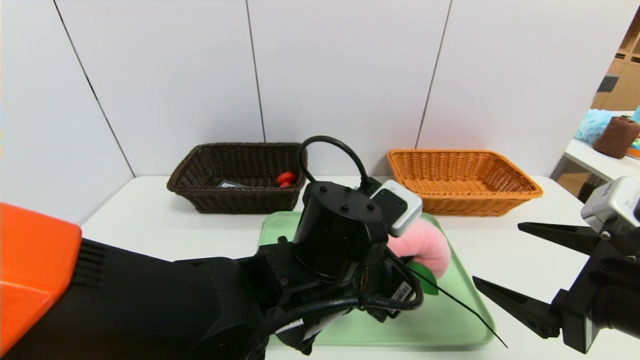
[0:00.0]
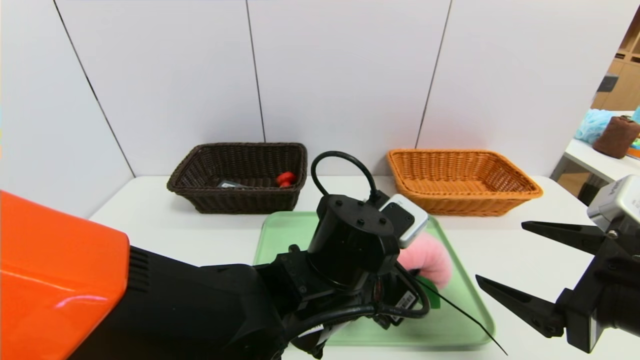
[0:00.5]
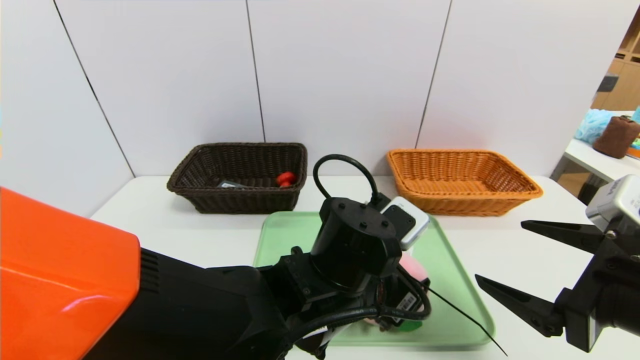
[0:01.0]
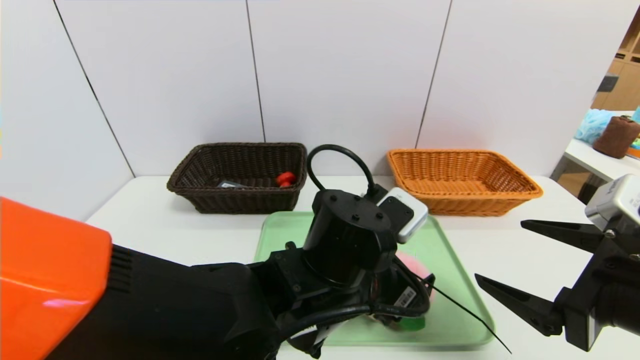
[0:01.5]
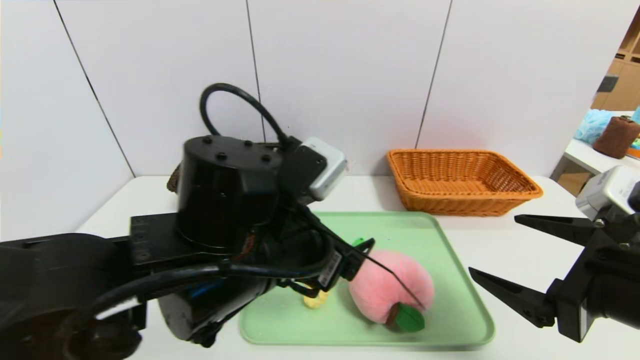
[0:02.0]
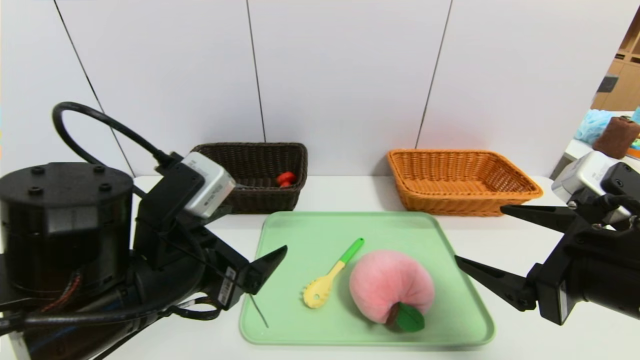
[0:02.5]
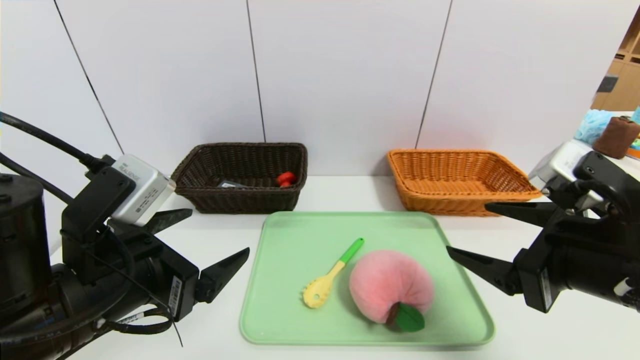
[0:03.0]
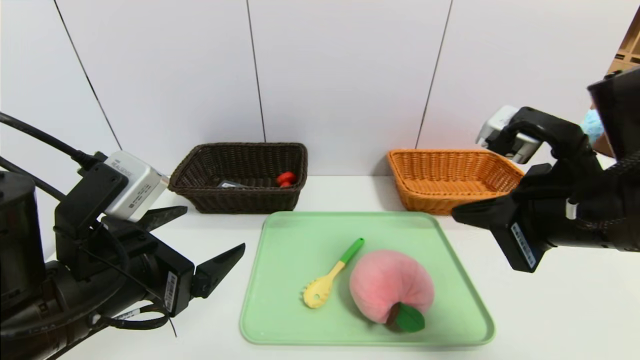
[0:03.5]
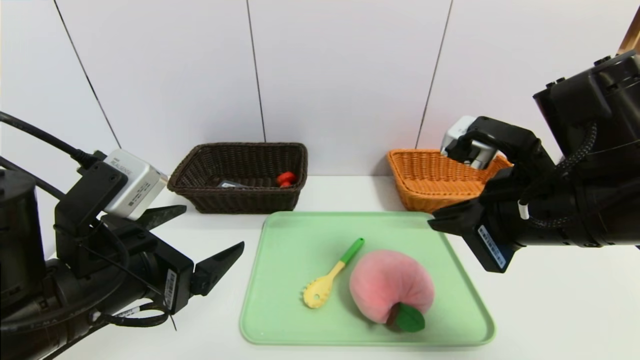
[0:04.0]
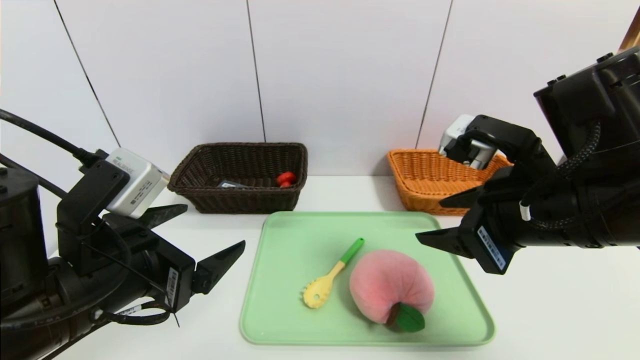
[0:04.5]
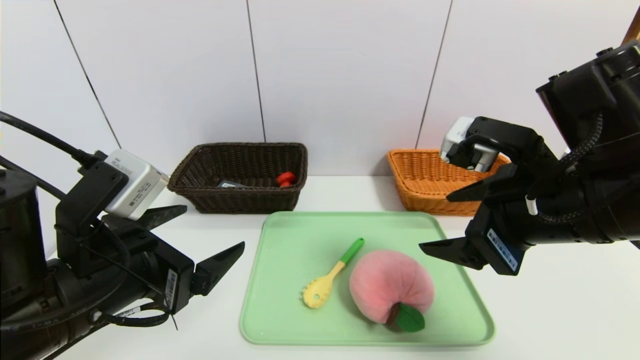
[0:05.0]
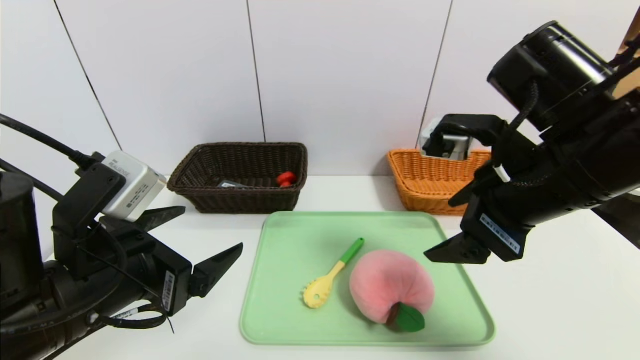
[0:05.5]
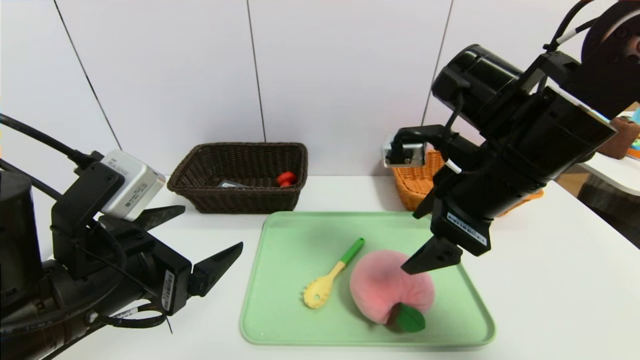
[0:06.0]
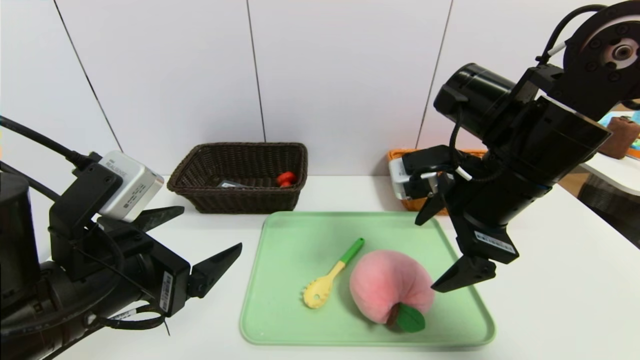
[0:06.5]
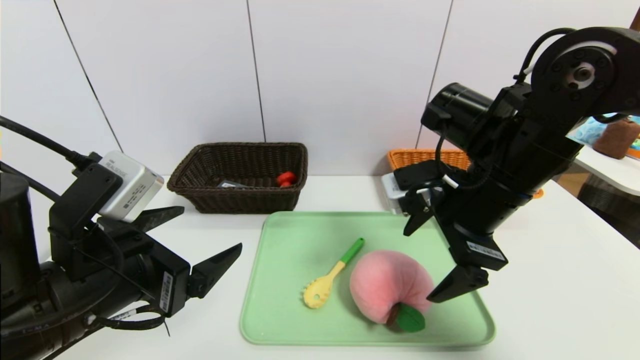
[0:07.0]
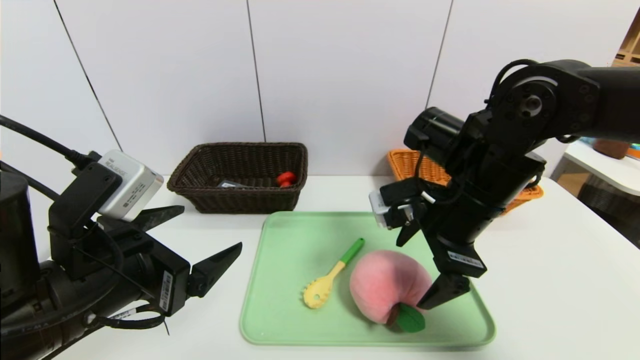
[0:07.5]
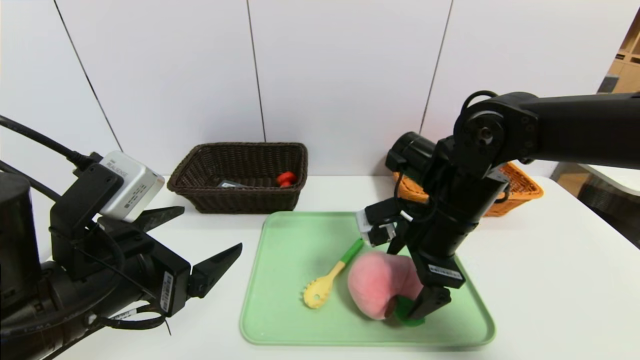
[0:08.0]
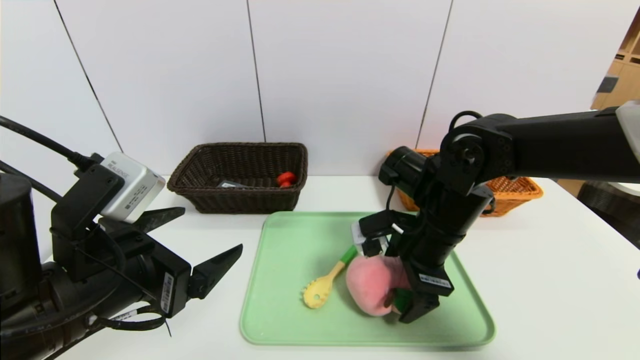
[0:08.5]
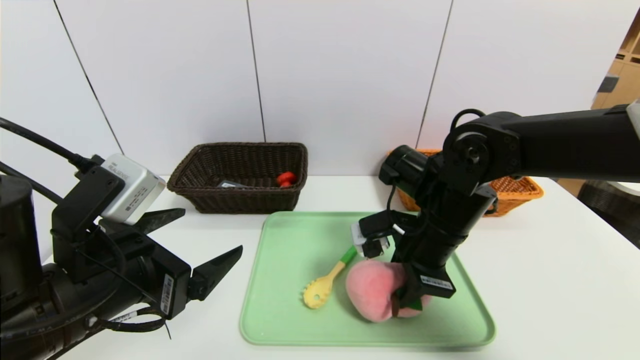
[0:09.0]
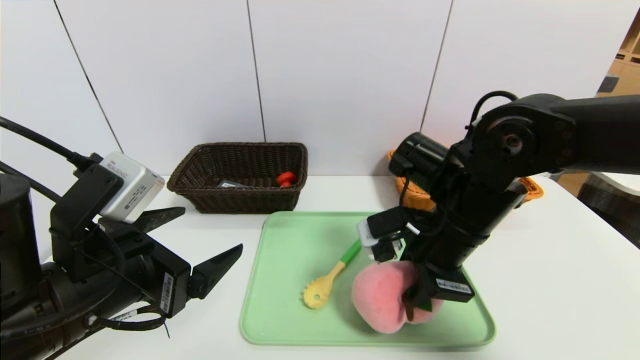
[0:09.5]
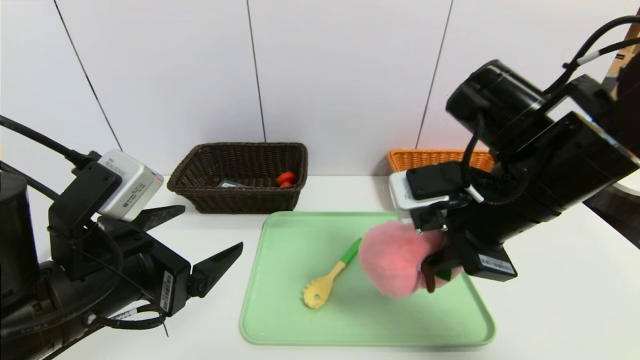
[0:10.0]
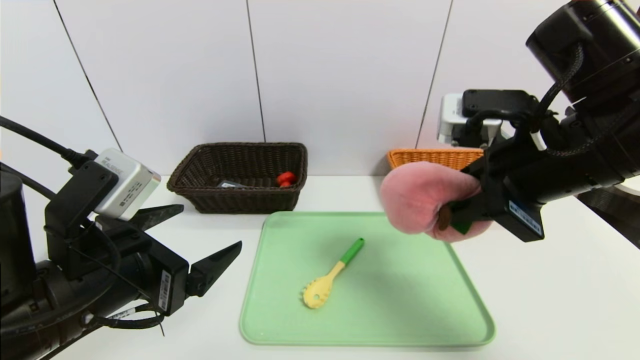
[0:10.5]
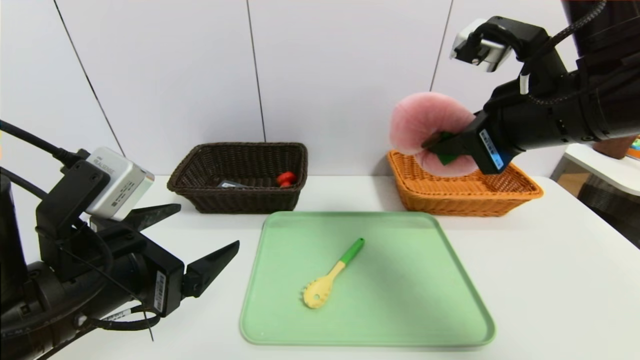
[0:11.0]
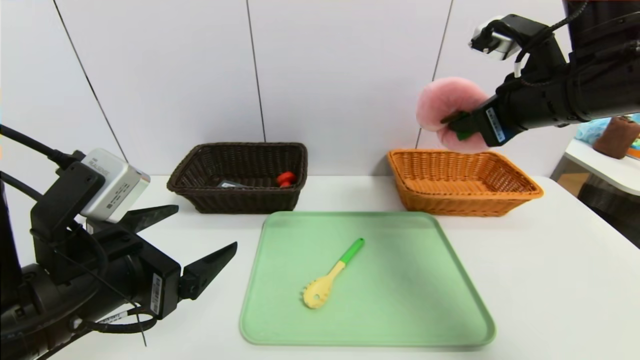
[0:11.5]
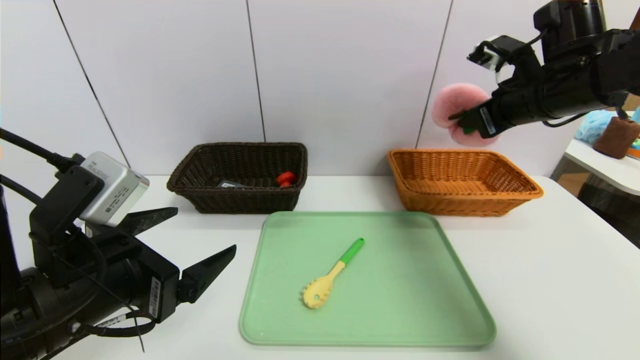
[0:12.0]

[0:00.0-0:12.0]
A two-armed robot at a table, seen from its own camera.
Task of the whole recording: place the food in the right basket with the right gripper, and place the non food items in the left basket with the left gripper.
0:00.0 to 0:02.0: The left gripper moves to the left, approximately 5 cm, and opens its fingers.
0:02.0 to 0:04.0: The right gripper heads forward and to the left, covering roughly 10 cm, and closes up, while the left gripper goes some 10 cm to the left.
0:04.0 to 0:06.0: The right gripper travels forward by roughly 5 cm, and opens up.
0:06.0 to 0:08.0: The right gripper moves downward, roughly 10 cm.
0:08.0 to 0:10.0: The right gripper goes about 10 cm upward and backward, and closes its fingers.
0:10.0 to 0:12.0: The right gripper is displaced forward and to the right by about 15 cm.

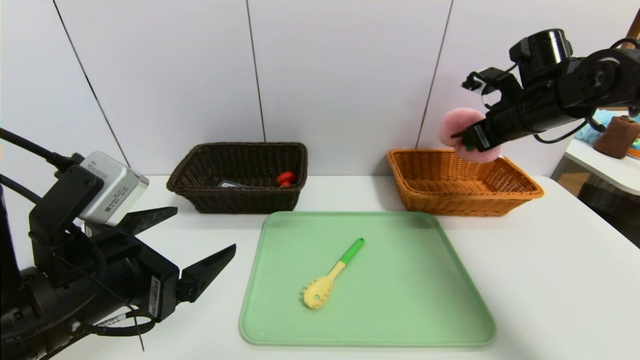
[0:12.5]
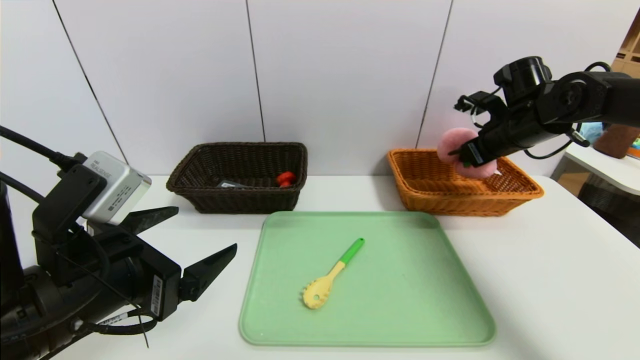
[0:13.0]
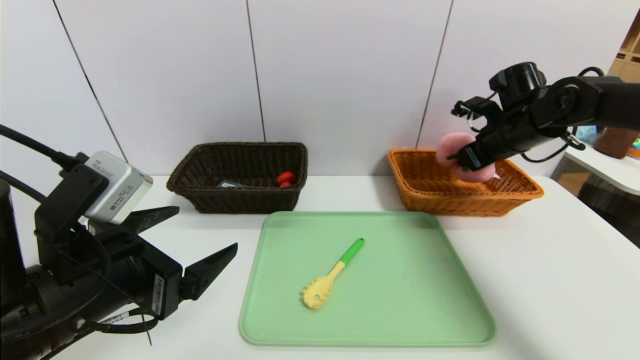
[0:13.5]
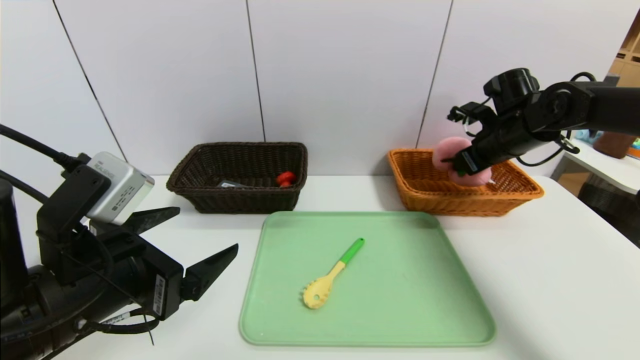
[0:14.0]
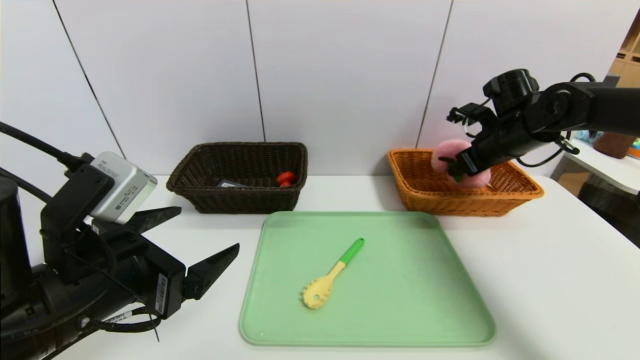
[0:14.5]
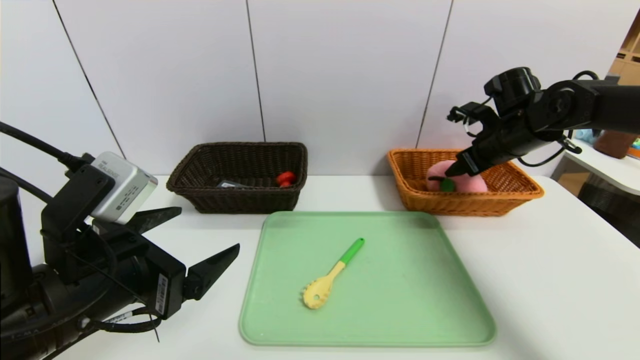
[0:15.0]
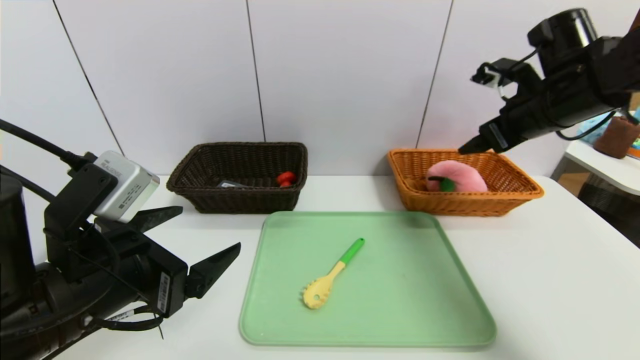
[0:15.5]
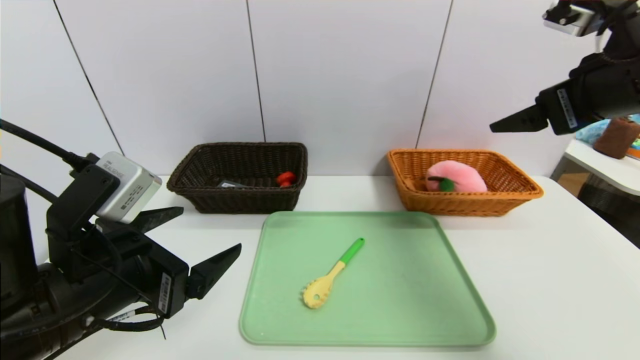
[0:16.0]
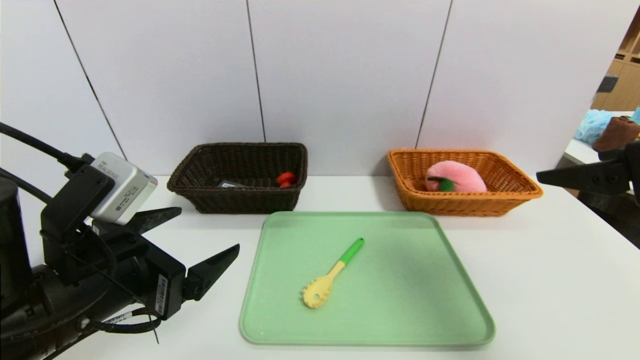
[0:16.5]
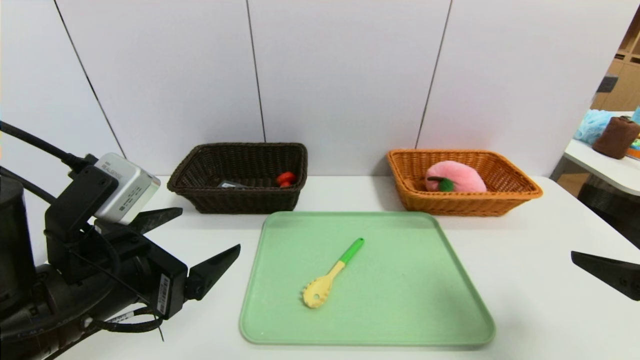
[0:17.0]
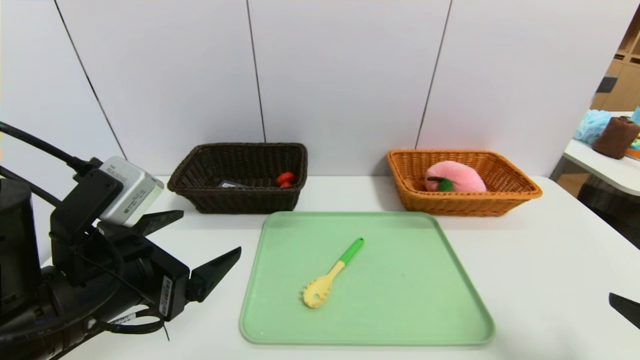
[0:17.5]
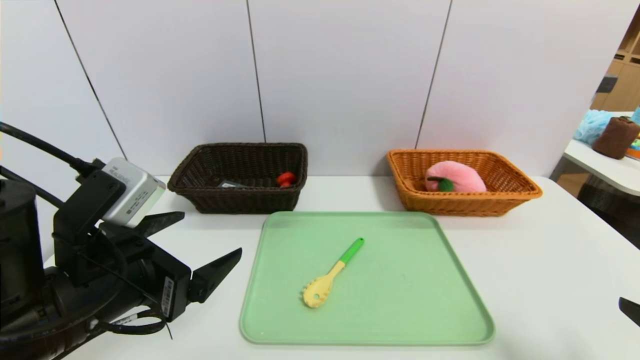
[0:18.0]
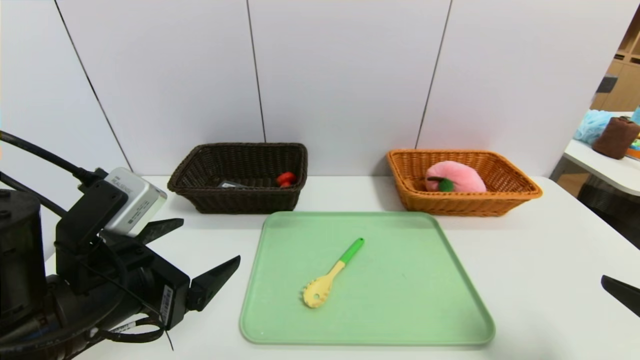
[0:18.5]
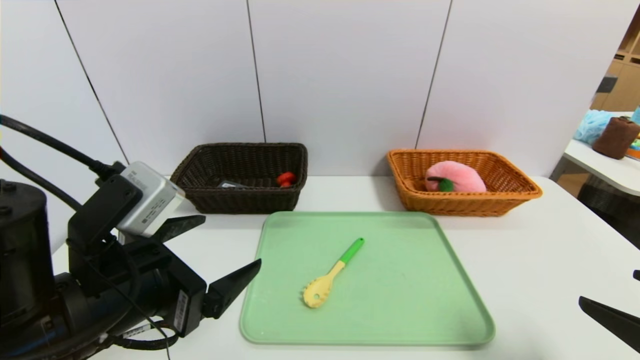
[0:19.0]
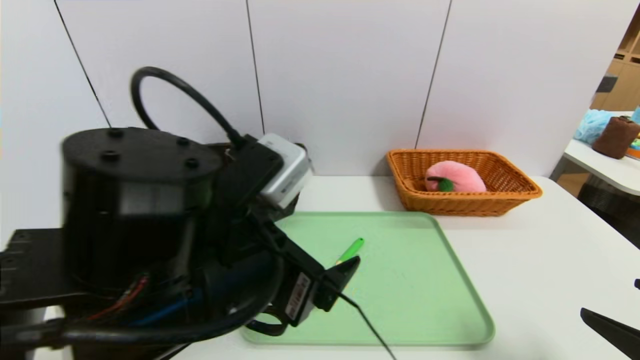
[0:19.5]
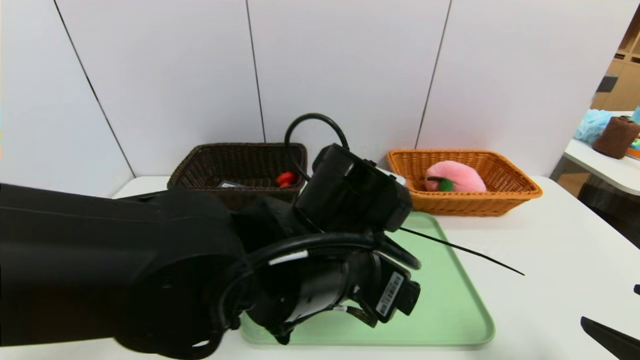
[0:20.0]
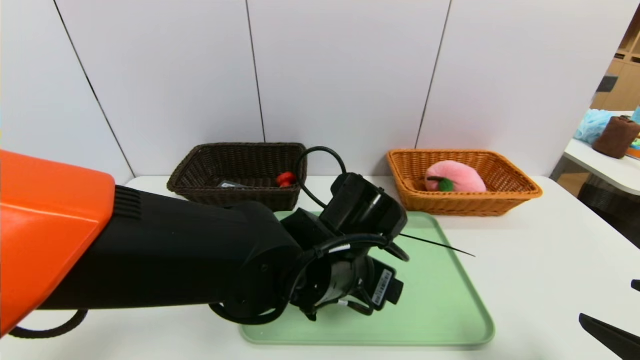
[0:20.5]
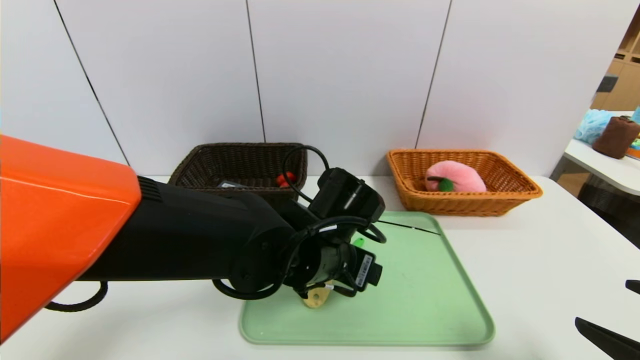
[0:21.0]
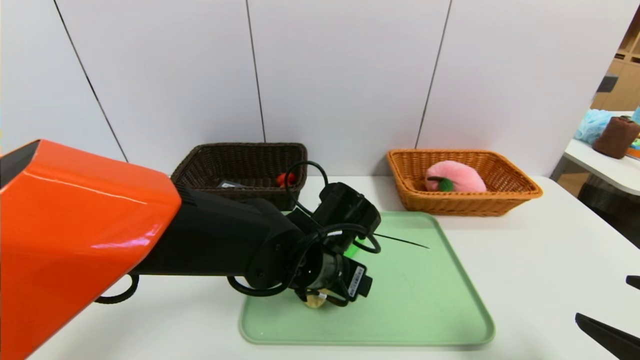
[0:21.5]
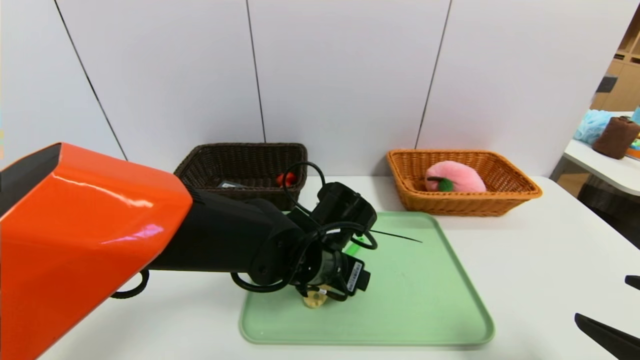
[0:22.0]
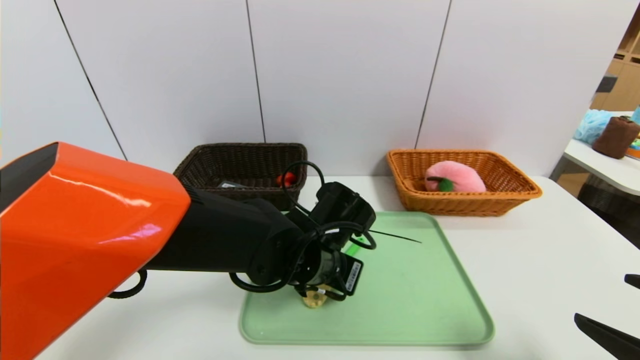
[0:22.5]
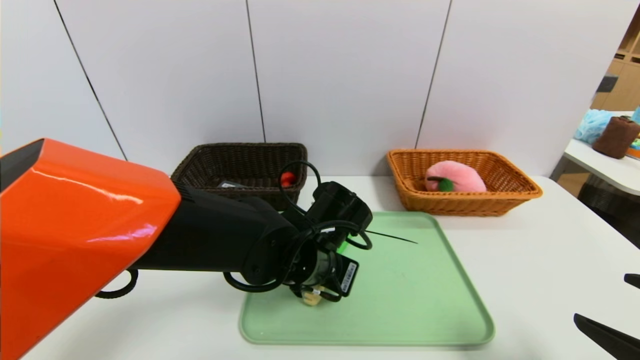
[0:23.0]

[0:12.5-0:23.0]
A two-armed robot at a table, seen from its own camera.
Task of the whole recording: place the food in the right basket with the right gripper, and place the non food items in the left basket with the left gripper.
Step, 0:12.5 to 0:15.5: Grasp the peach doll and put it in the right basket.
0:12.5 to 0:14.5: The right gripper heads downward, covering some 5 cm, and opens.
0:14.5 to 0:16.5: The right gripper heads backward and upward, covering roughly 30 cm.
0:16.5 to 0:19.0: The right gripper goes approximately 15 cm downward and backward.
0:19.0 to 0:21.0: The left gripper heads to the right and forward, covering about 20 cm.
0:21.0 to 0:23.0: The left gripper closes.
